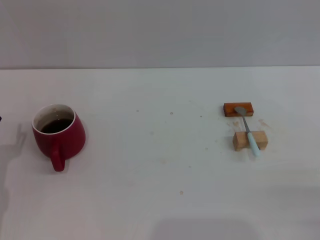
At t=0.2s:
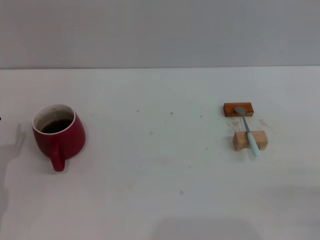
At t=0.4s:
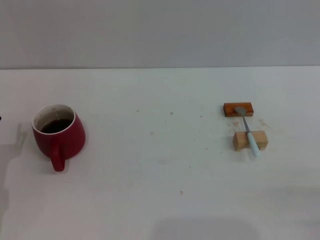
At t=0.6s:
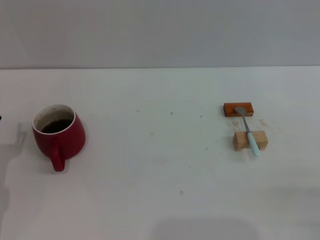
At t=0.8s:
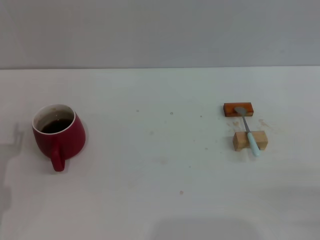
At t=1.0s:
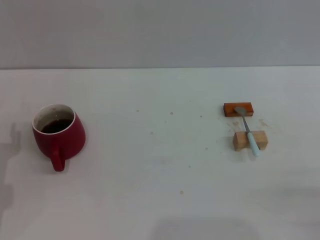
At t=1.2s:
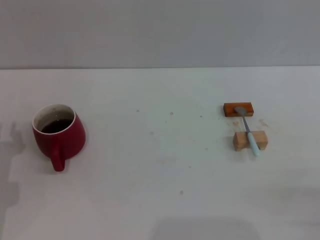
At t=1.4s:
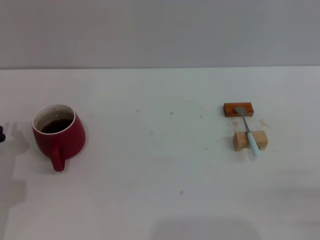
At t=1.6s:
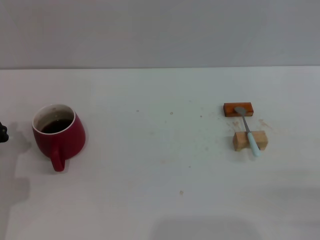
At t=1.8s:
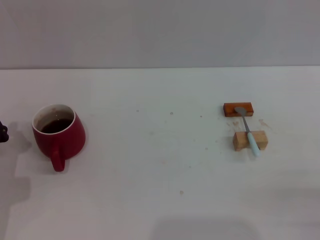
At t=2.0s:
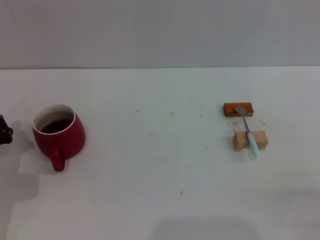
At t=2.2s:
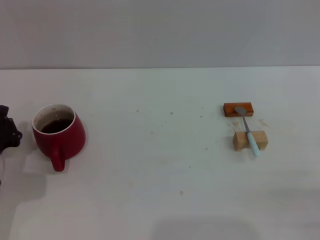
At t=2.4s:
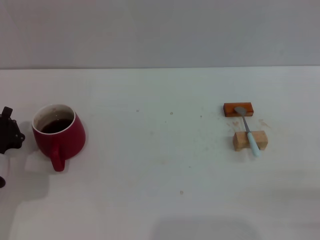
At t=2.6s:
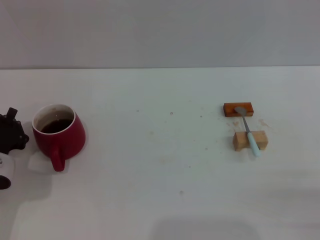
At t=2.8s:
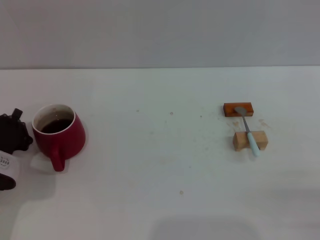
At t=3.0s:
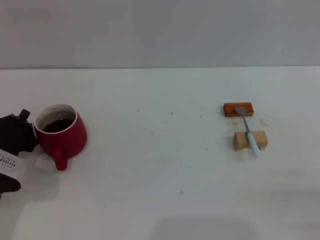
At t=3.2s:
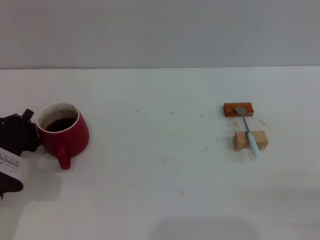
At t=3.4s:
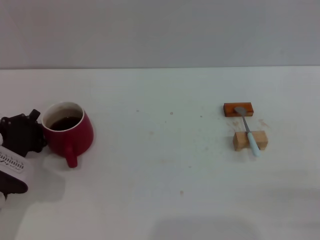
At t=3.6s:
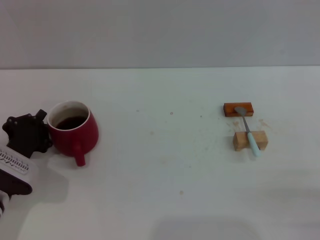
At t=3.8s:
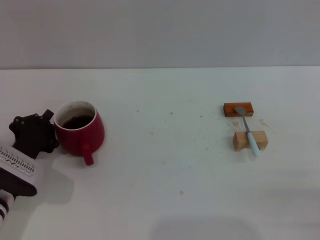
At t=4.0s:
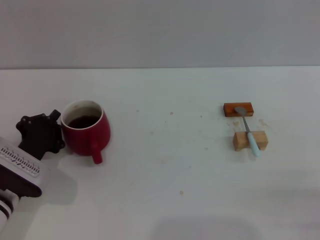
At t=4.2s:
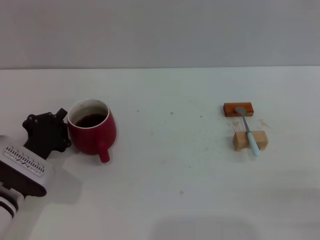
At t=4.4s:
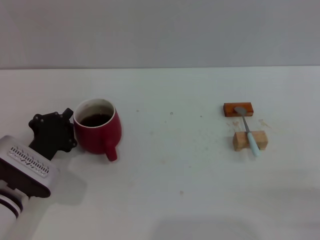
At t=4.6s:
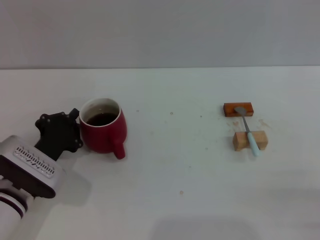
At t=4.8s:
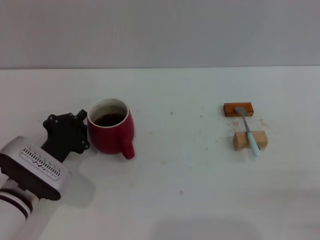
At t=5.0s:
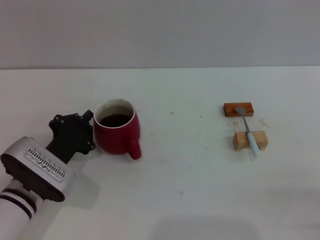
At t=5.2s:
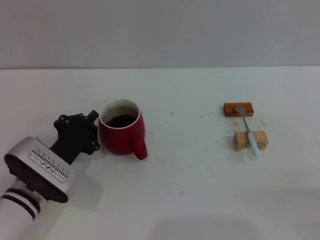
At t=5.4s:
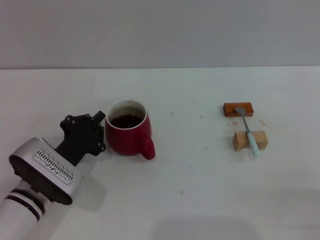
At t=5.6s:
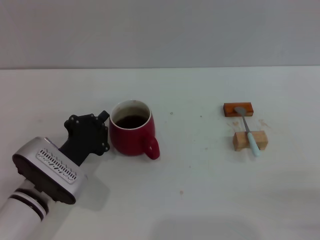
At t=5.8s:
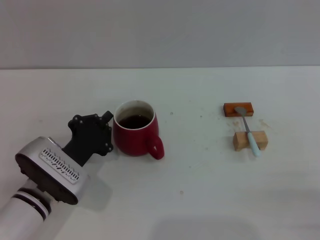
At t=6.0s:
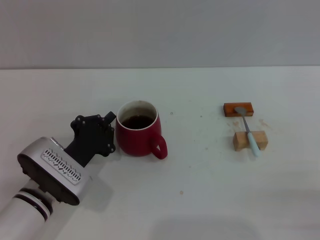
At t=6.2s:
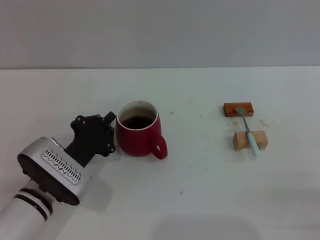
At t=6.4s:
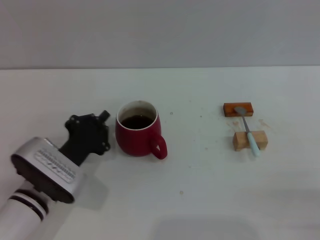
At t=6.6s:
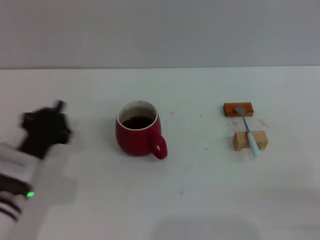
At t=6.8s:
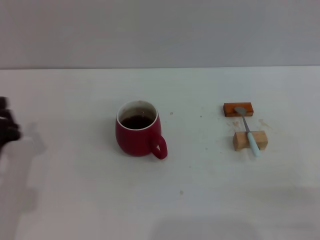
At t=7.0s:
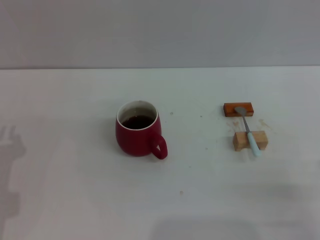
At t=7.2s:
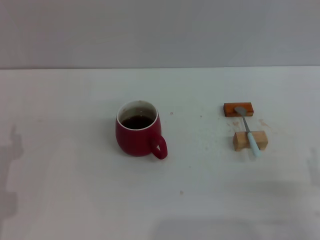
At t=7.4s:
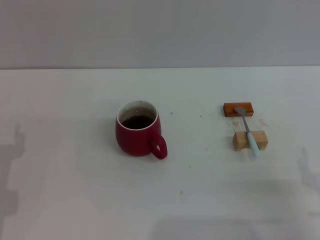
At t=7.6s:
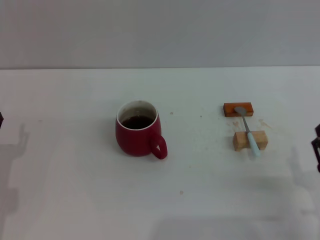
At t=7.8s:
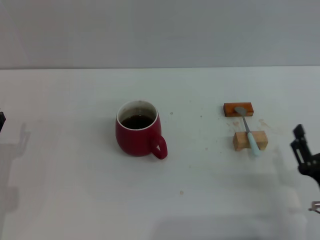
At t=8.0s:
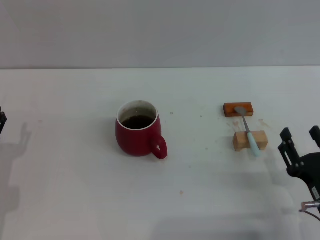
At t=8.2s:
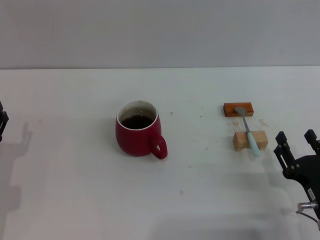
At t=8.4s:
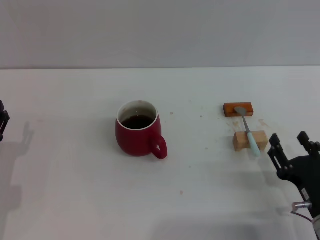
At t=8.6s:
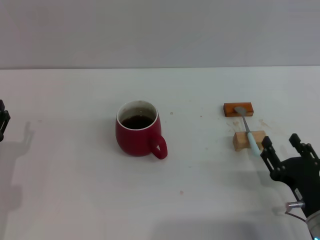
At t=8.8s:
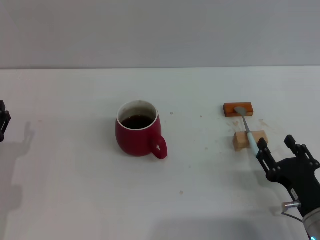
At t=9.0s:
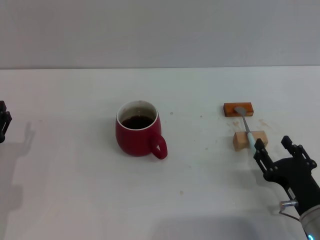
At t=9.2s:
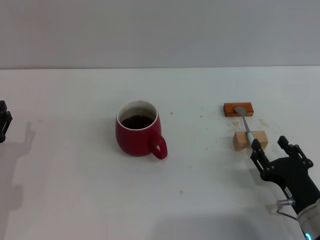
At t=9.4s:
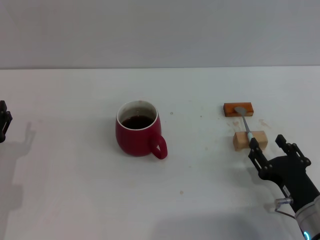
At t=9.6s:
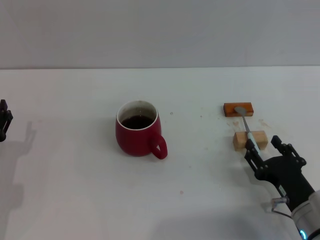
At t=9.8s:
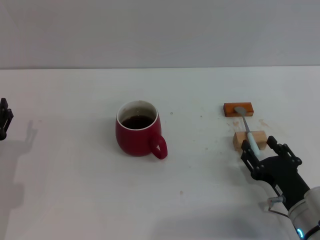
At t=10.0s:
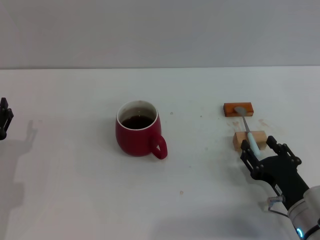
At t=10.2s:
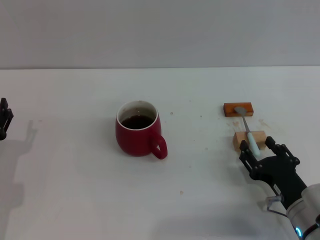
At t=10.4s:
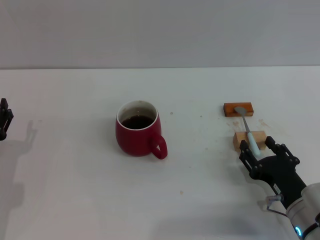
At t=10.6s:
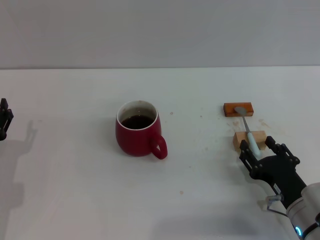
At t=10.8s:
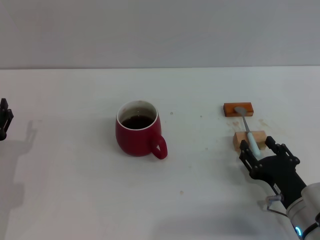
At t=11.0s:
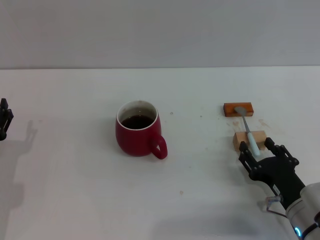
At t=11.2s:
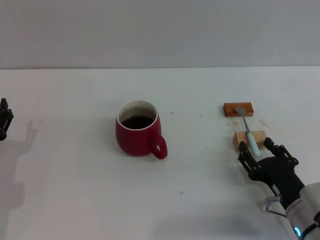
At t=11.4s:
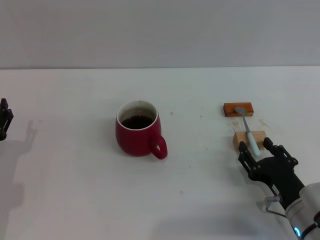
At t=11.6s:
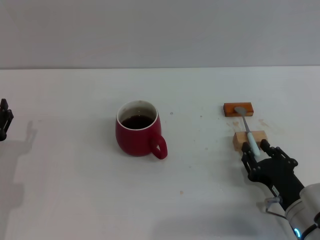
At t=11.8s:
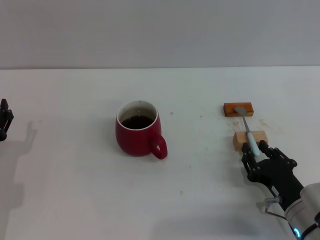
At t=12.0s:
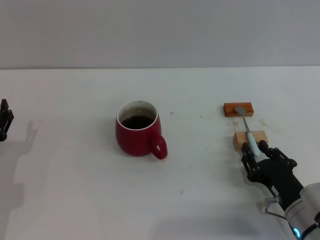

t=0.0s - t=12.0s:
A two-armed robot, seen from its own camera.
Task of the whole recording: Move the red cup to the center, lift the blue spoon, stir it three times in the cup, and put the spoon into the cup.
Step, t=0.0s - t=6.4s: Move the cup with coffee to the center of view with the left gripper.
t=3.0s - t=4.4s: The grippers stay close to where they were, moving slightly.
t=4.4s - t=6.0s: The grippers make only small movements.
t=6.0s - t=7.6s: The left gripper shifts some 10 cm to the left, and opens; the right gripper goes approximately 5 cm to the left.
t=7.6s - t=9.0s: The right gripper moves approximately 5 cm.
t=9.0s - t=10.4s: The grippers move only a little.
t=10.4s - t=12.0s: The right gripper closes its fingers.

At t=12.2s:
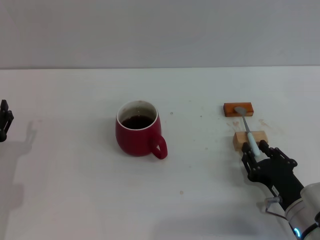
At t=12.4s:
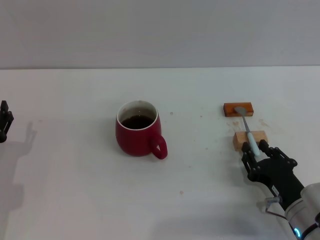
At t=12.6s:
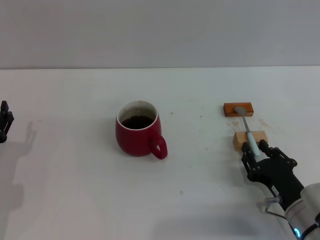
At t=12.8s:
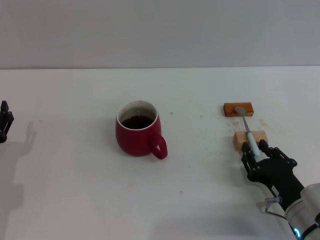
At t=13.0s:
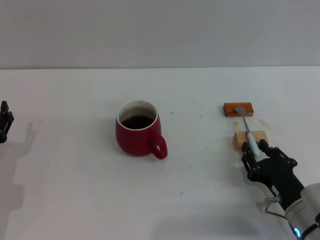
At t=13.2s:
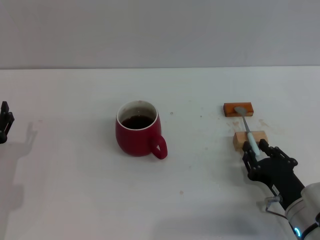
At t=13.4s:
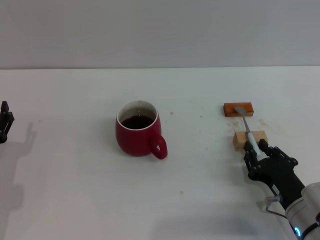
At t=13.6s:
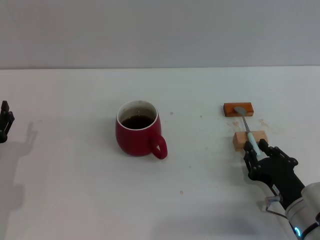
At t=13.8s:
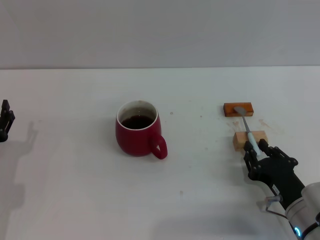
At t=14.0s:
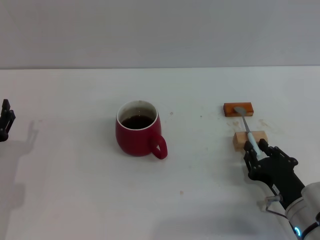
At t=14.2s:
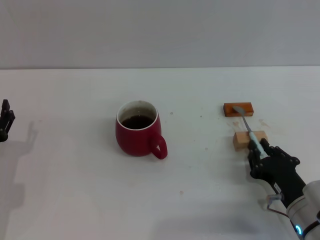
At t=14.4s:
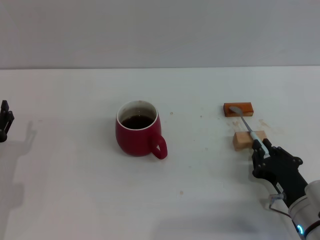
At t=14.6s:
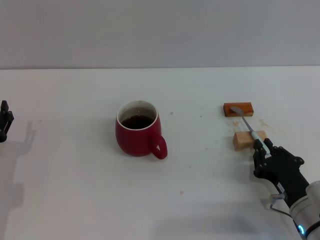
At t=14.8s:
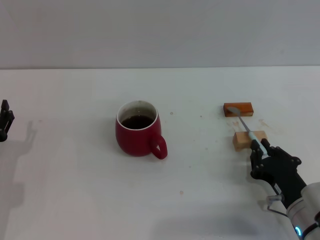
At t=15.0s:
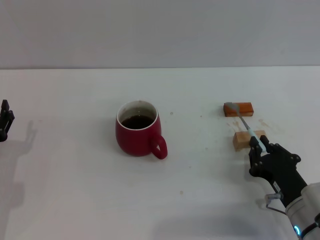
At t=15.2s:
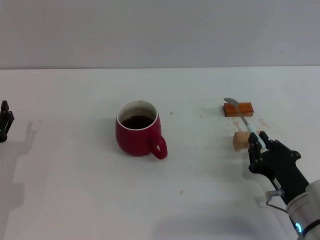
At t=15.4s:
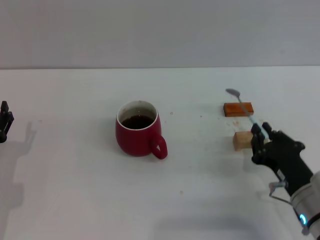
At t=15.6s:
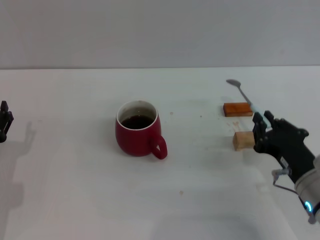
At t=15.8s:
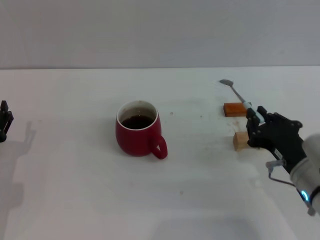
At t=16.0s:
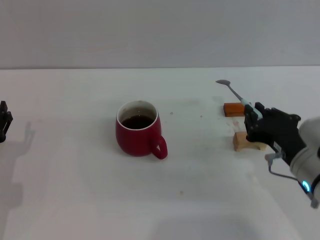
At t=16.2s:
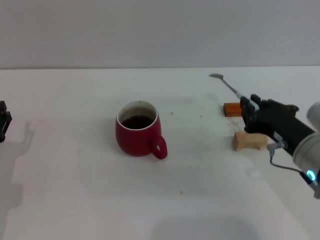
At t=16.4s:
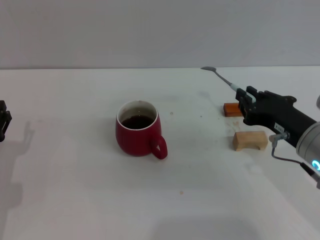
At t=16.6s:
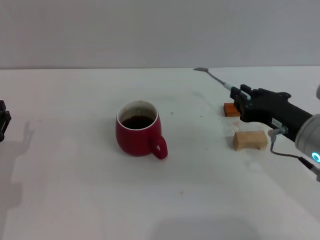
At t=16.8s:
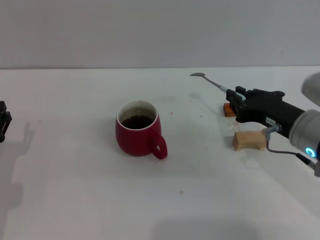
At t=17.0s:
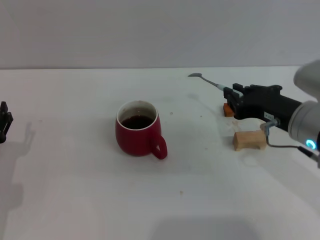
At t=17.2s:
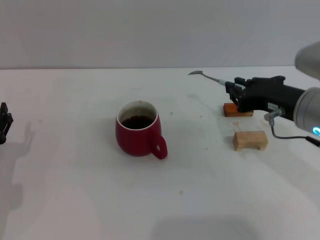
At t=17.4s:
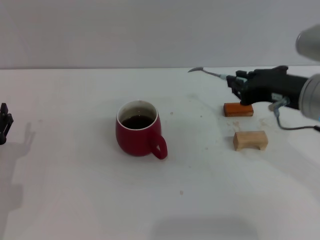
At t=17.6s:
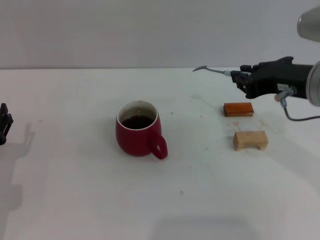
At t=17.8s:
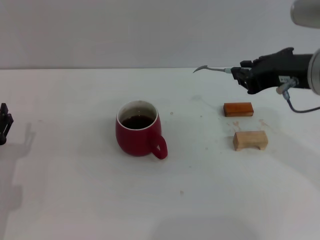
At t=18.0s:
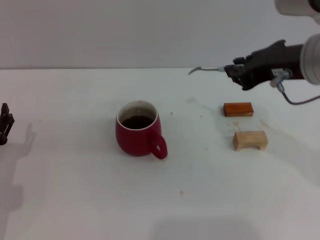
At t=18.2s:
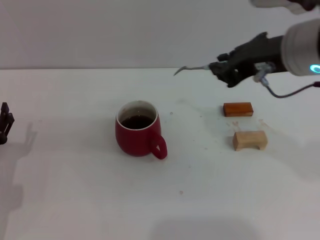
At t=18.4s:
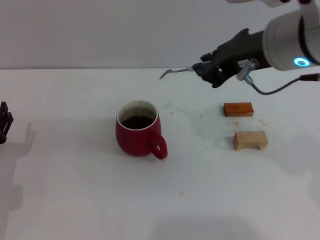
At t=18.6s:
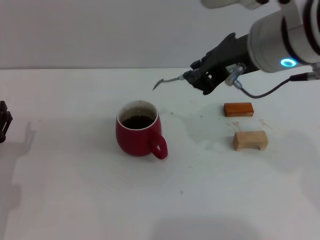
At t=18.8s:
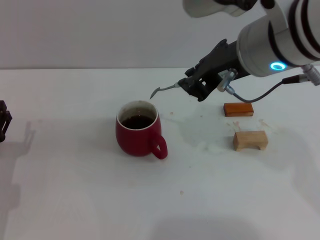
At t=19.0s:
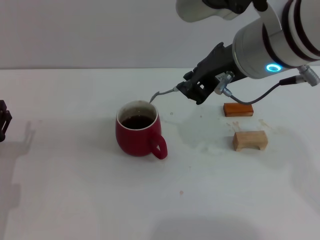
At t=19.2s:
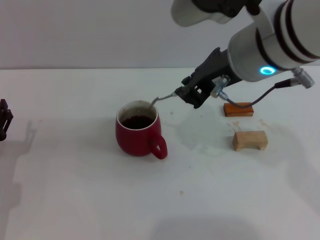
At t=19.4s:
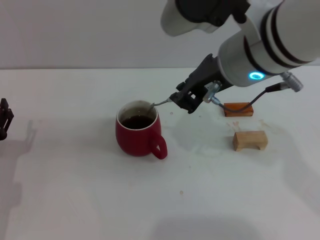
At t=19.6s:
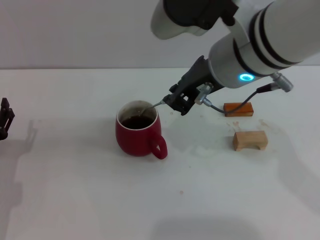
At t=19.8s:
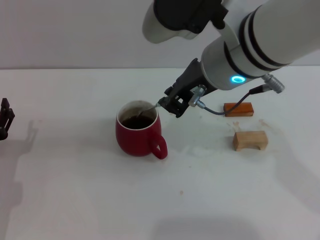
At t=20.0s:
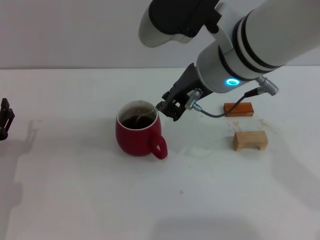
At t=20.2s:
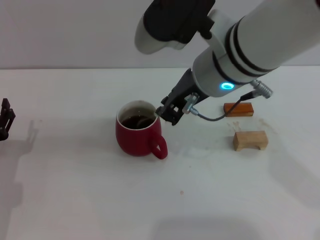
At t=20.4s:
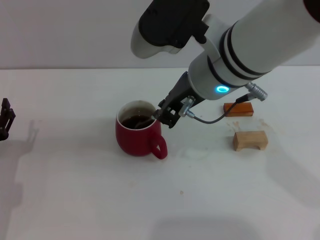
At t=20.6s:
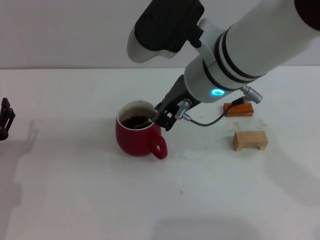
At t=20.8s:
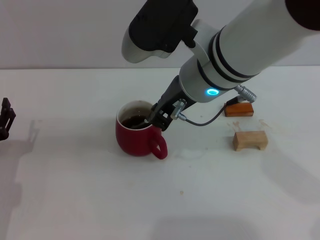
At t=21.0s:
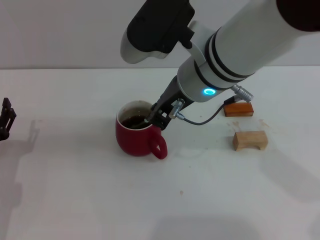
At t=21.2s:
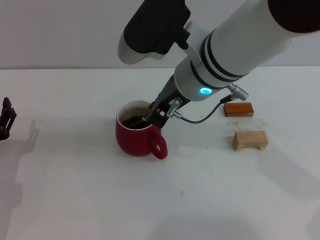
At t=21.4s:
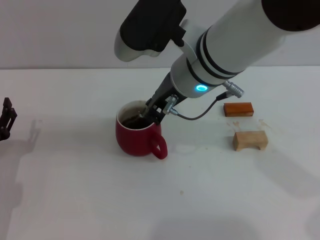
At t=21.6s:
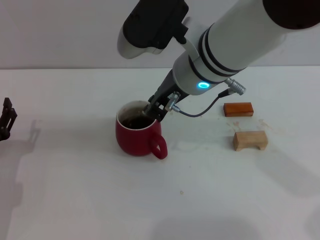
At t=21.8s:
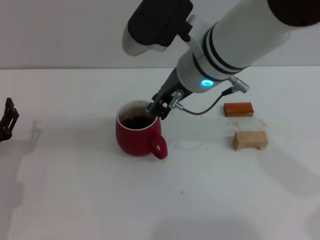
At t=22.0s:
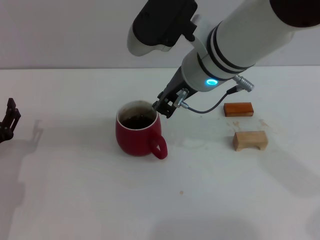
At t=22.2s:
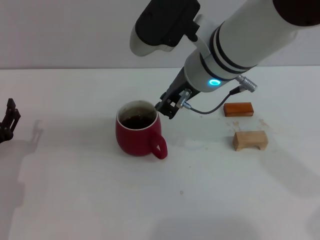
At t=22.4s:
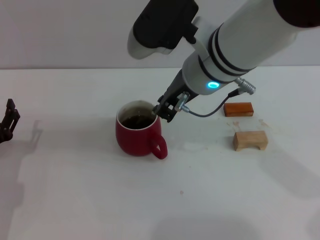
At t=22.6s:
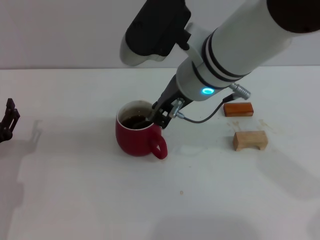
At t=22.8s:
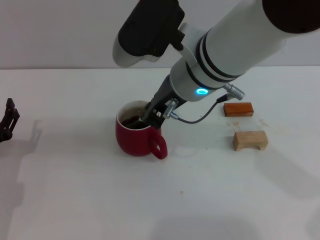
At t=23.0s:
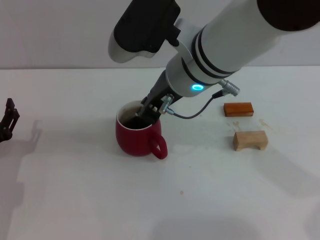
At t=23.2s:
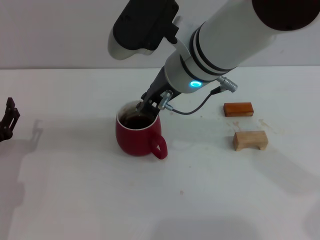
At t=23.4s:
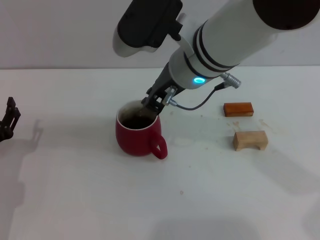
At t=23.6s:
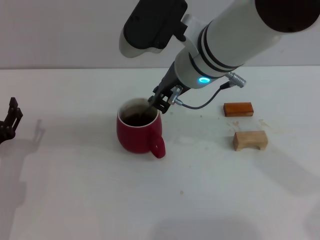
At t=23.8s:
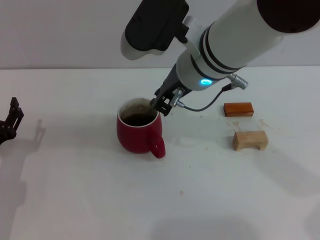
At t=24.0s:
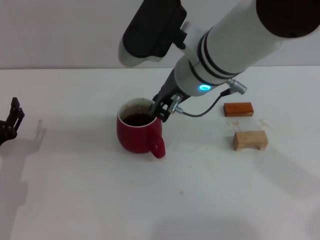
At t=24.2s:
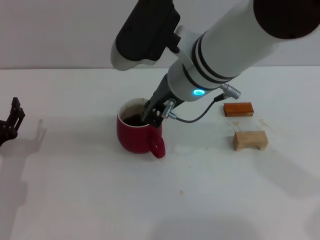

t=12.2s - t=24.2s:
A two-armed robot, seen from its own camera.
Task of the whole recording: Move the red cup to the center, lift the blue spoon, stir it three times in the cup, and put the spoon into the cup.
Step, t=12.2s - t=16.4s: Pick up the spoon with the right gripper.
t=12.2s - t=13.8s: Both grippers stay put.
t=13.8s - t=15.2s: The grippers move only a little.
t=15.2s - t=16.6s: The right gripper heads upward and forward, covering approximately 15 cm.
t=16.6s - t=18.2s: The right gripper is displaced upward and to the left by roughly 15 cm.
t=18.2s - t=19.8s: The right gripper travels to the left by some 10 cm.
t=19.8s - t=21.2s: The right gripper changes place by about 5 cm.
t=21.2s - t=24.2s: The grippers move only a little.
